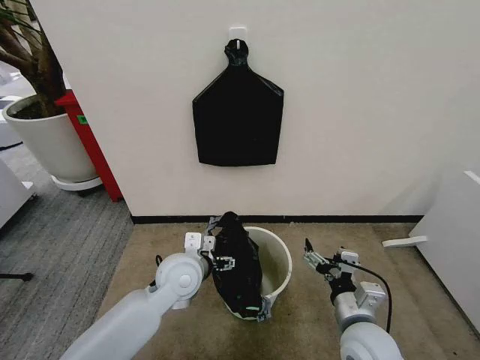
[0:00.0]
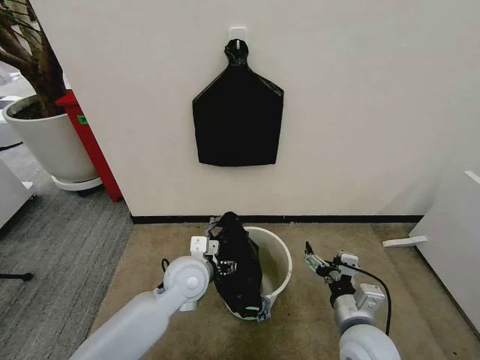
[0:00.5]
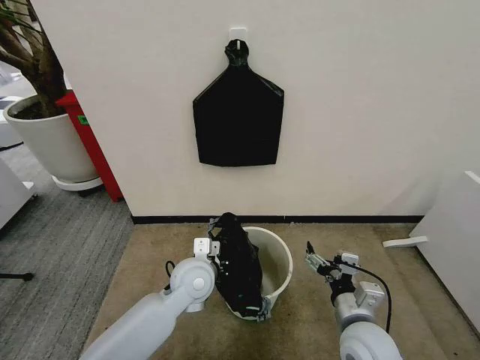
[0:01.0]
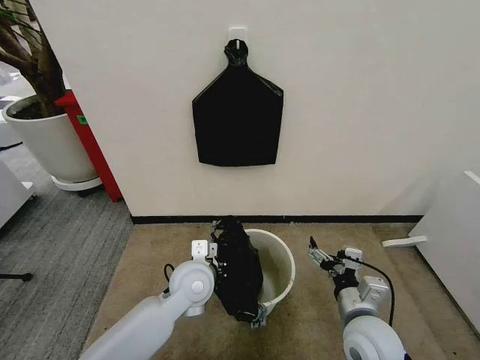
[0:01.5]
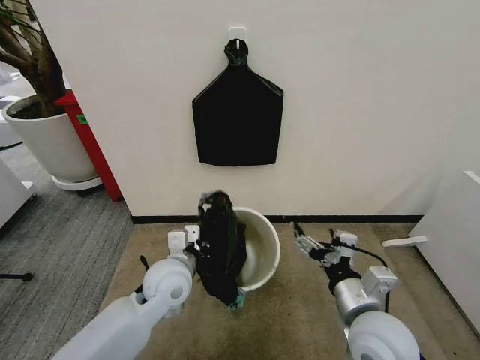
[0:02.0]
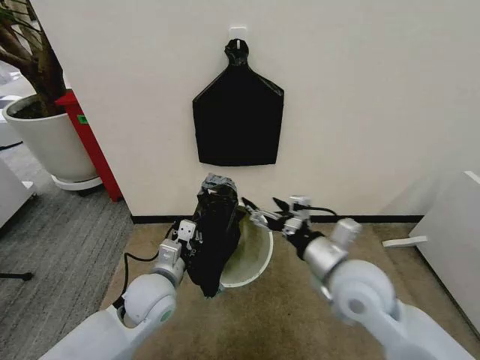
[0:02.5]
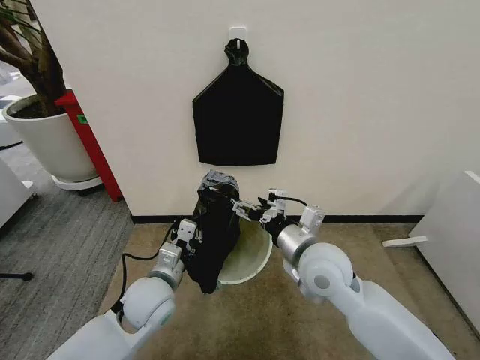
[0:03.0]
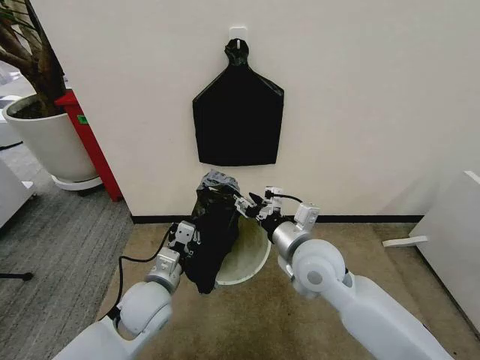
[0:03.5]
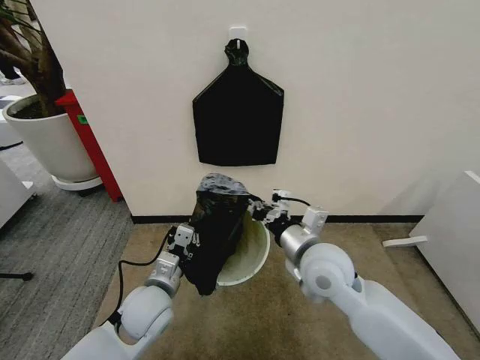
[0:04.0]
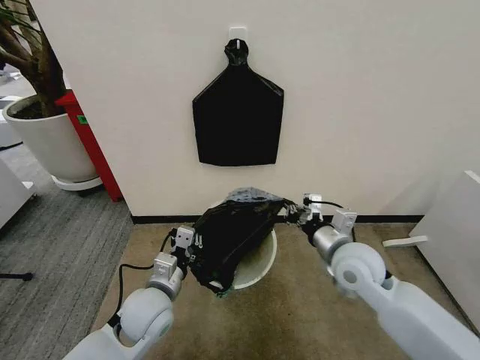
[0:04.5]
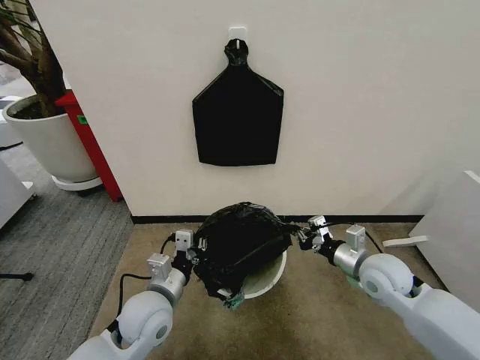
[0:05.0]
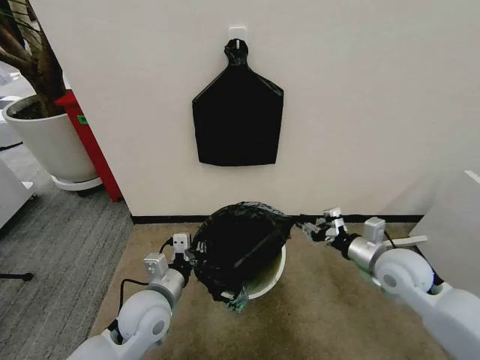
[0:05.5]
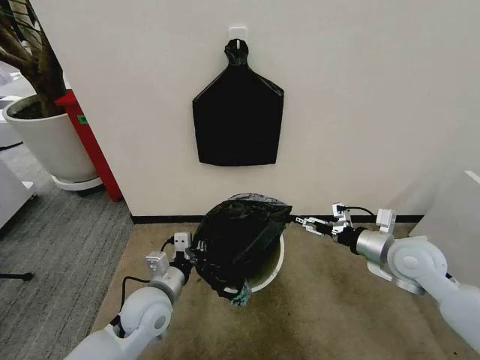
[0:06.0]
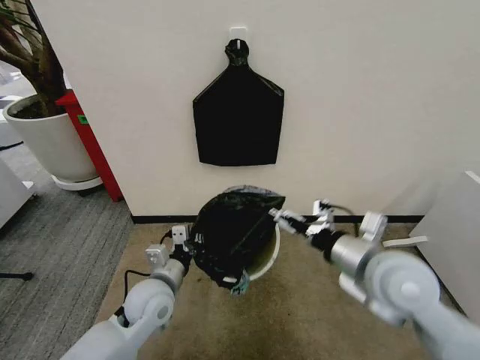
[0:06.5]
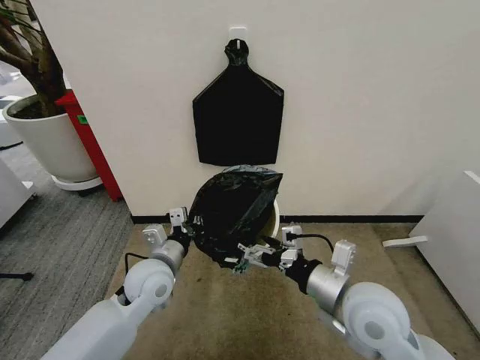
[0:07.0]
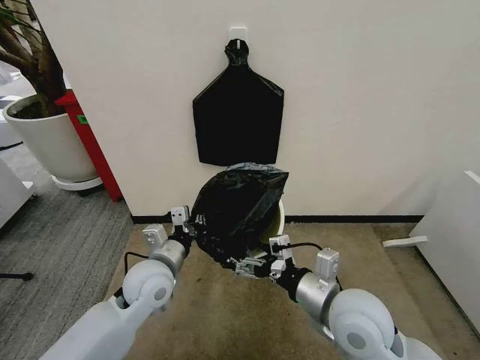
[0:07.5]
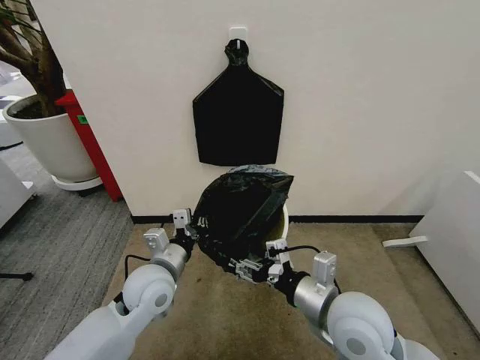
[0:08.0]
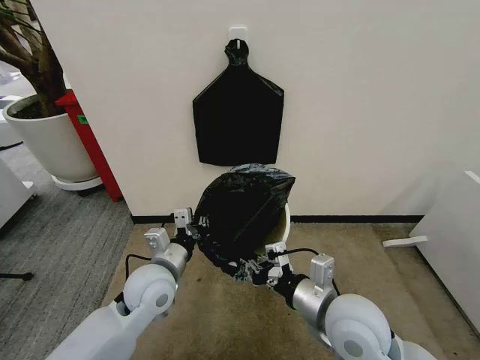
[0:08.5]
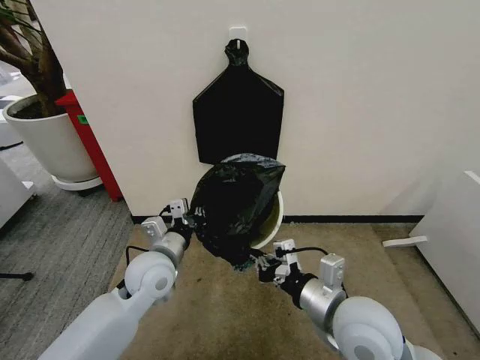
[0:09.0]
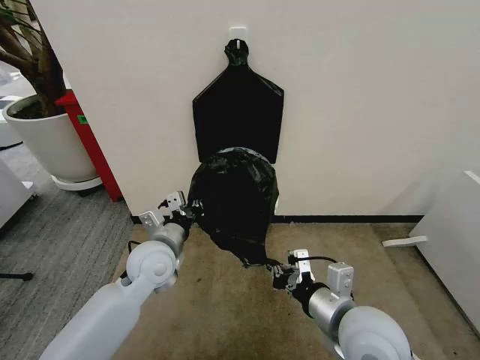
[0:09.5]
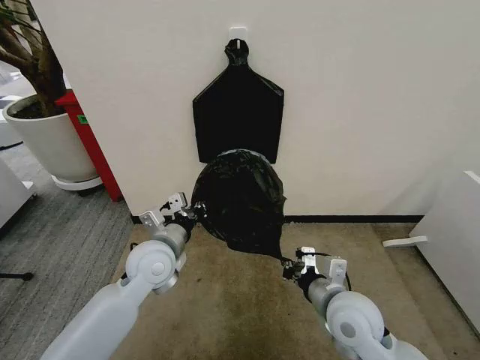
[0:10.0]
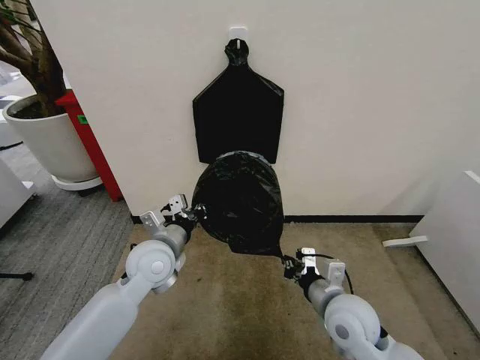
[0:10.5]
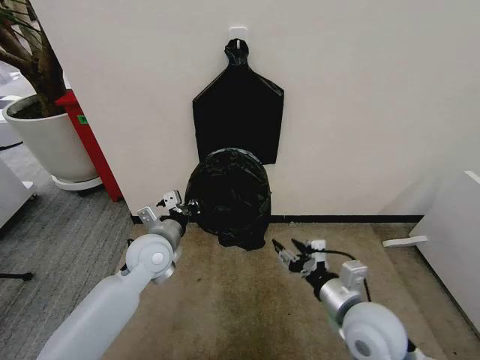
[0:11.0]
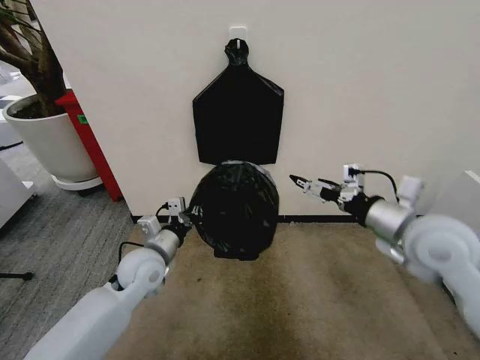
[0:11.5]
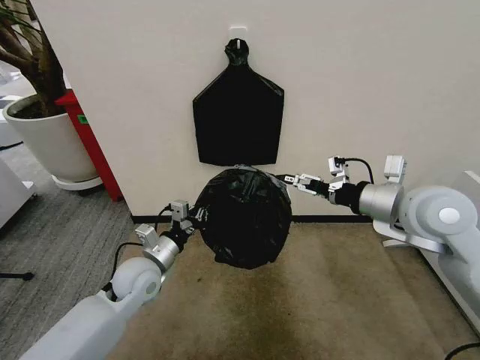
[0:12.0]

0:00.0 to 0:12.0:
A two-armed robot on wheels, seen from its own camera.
Task of the whole recording: Place the garbage bag over the trash bin.
0:00.0 to 0:02.0: The left gripper closes its fingers. Meanwhile the right gripper heads upward, covering some 10 cm.
0:02.0 to 0:04.0: The right gripper is displaced forward and to the left by about 15 cm, and closes its fingers, while the left gripper ends up roughly 5 cm from where it was.
0:04.0 to 0:06.0: The right gripper heads to the right, covering some 20 cm, and opens up.
0:06.0 to 0:08.0: The right gripper goes about 20 cm to the left and backward, while the left gripper changes place by approximately 5 cm.
0:08.0 to 0:10.0: The right gripper moves downward, some 5 cm, and closes up.
0:10.0 to 0:12.0: The right gripper heads upward, to the right and forward, covering some 25 cm, and opens its fingers. Meanwhile the left gripper shifts roughly 5 cm downward.

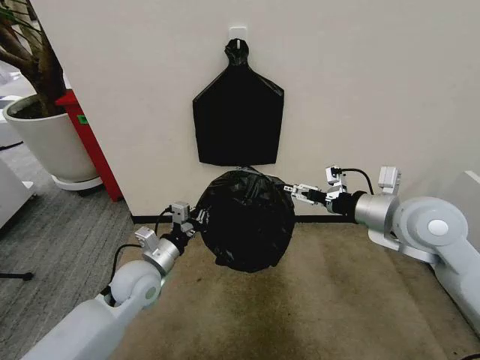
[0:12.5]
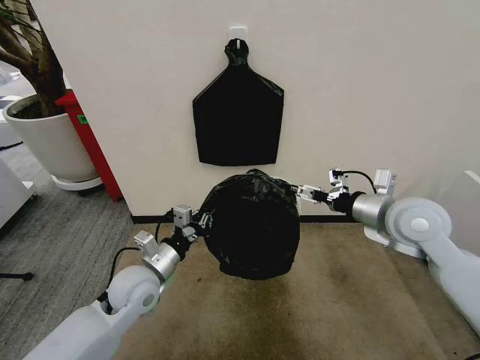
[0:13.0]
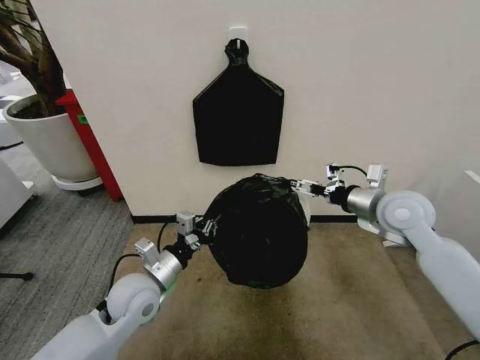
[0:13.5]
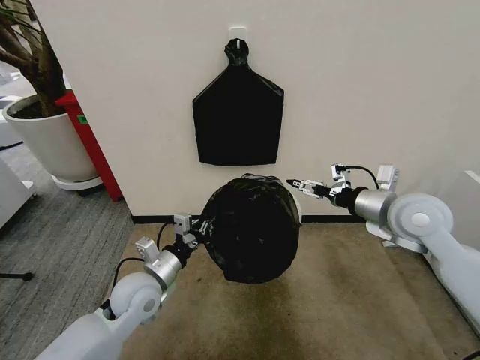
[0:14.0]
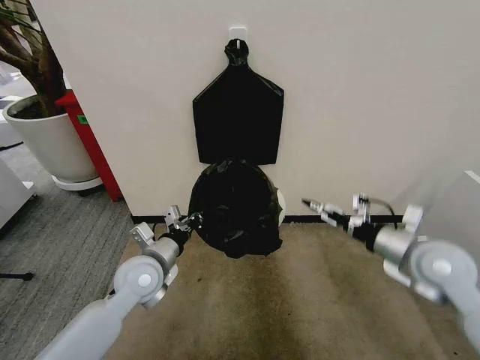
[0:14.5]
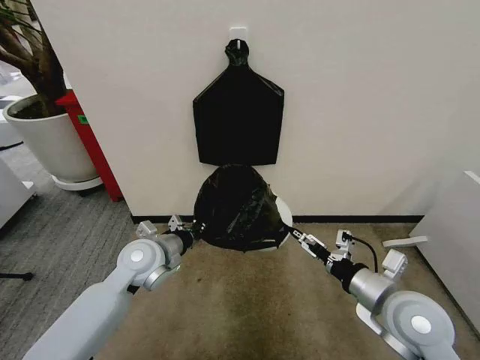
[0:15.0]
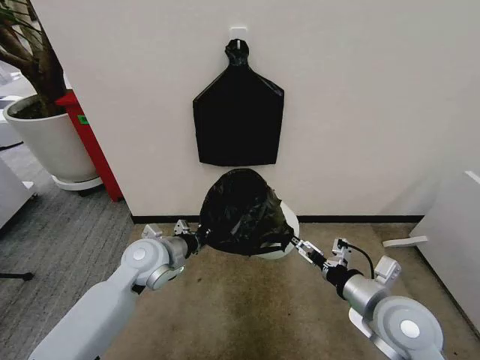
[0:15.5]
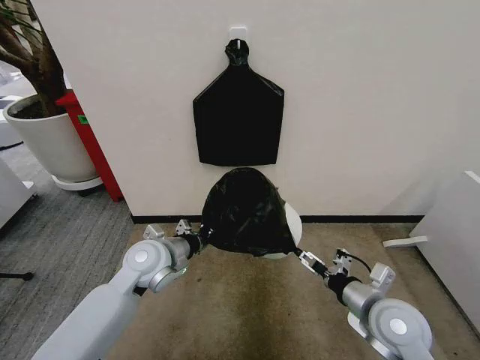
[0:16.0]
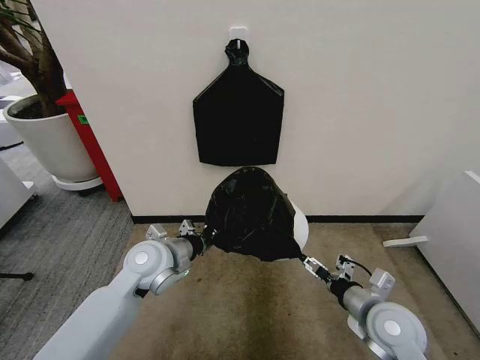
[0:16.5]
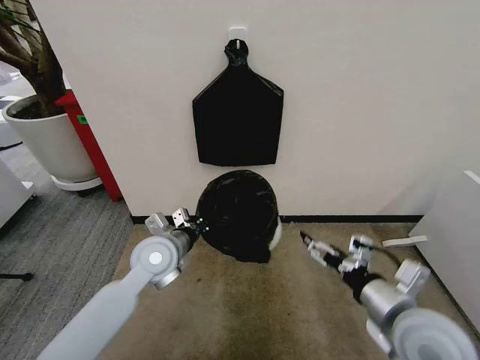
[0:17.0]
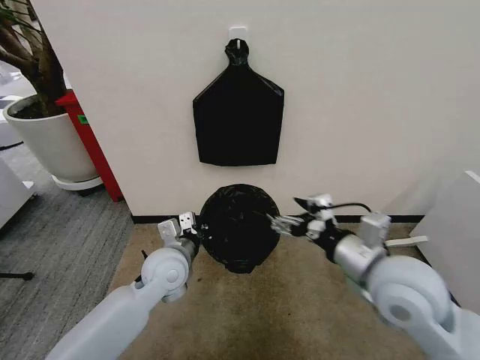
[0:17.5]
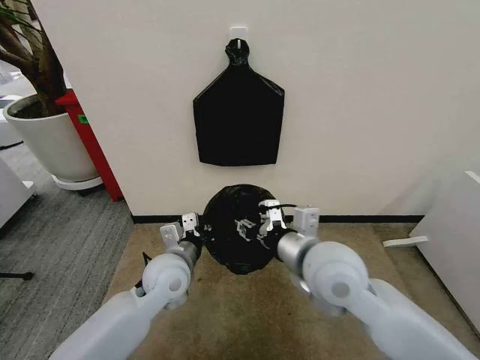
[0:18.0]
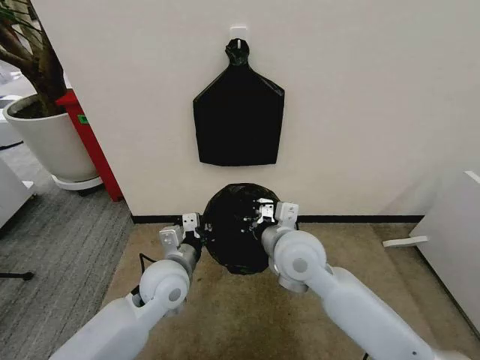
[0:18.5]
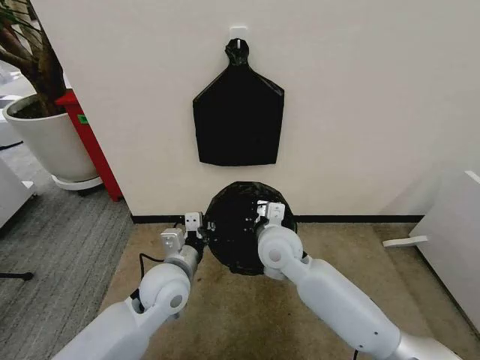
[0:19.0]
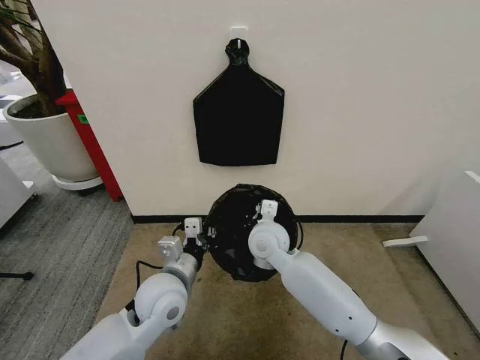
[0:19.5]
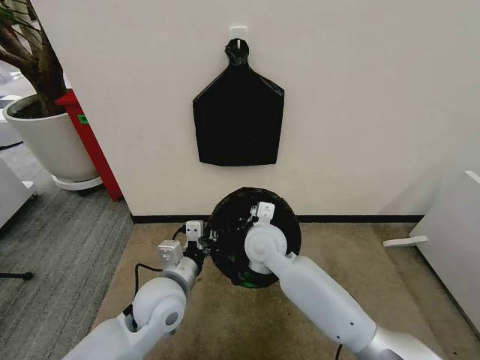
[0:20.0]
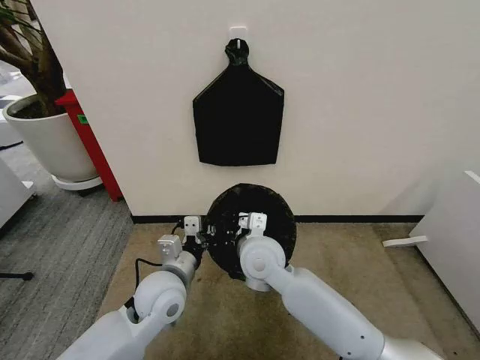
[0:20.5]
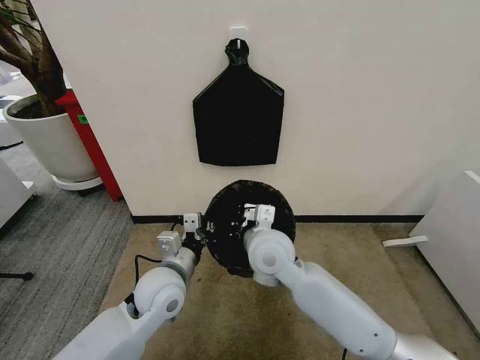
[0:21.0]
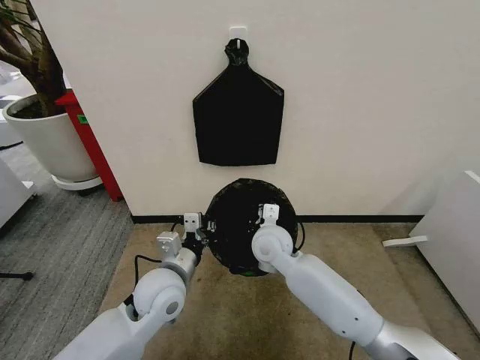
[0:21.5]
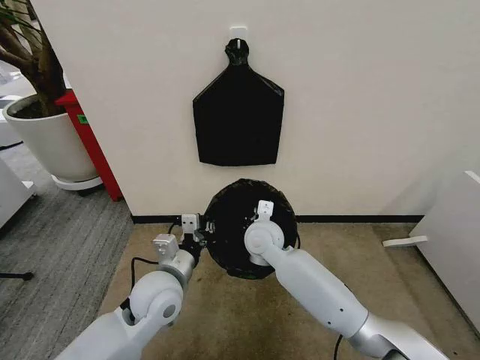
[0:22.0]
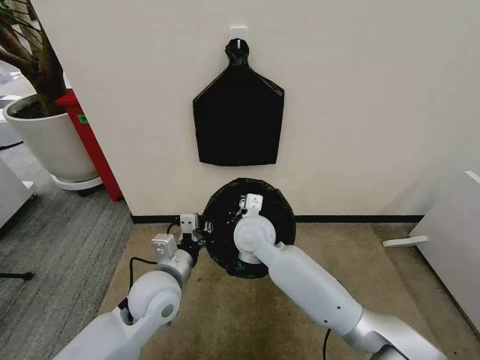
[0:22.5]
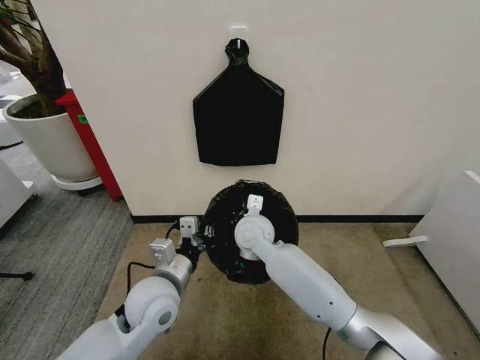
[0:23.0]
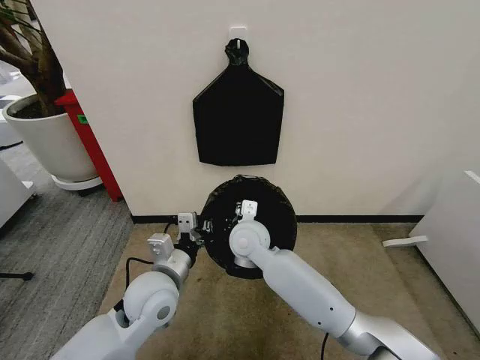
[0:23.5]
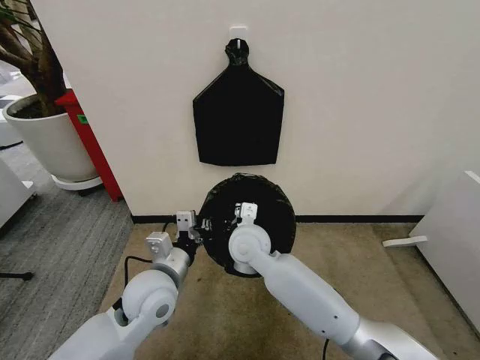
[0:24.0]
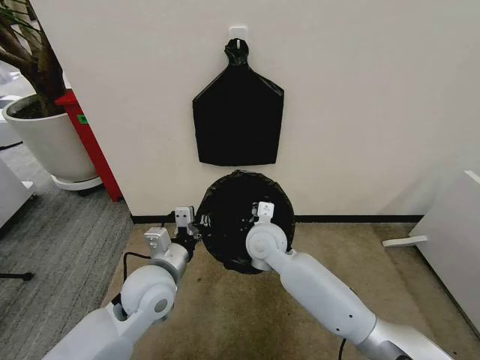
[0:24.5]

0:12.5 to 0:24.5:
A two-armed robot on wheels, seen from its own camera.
Task of the whole recording: Place the garbage bag over the trash bin.
0:12.5 to 0:14.5: The right gripper moves downward and to the right, roughly 10 cm.
0:14.5 to 0:16.5: The right gripper shifts about 15 cm downward, to the left and backward.
0:16.5 to 0:18.5: The left gripper ends up some 5 cm from where it was; the right gripper travels to the left, upward and forward by roughly 25 cm, and closes its fingers.
0:18.5 to 0:20.5: The right gripper travels to the left and downward by roughly 10 cm, and moves approximately 10 cm forward and comes back.
0:20.5 to 0:22.5: The right gripper travels forward by some 5 cm.
0:22.5 to 0:24.5: There are only small adjustments of the grippers.

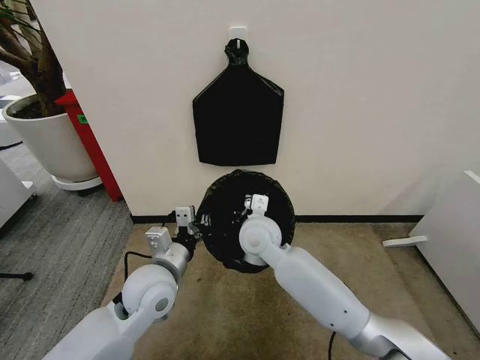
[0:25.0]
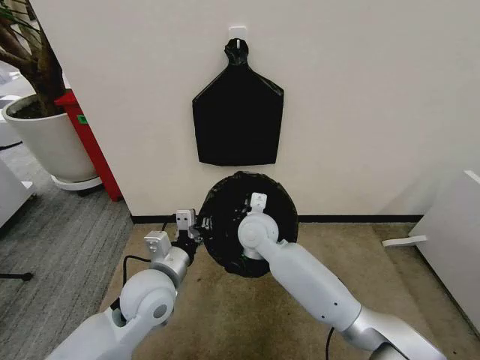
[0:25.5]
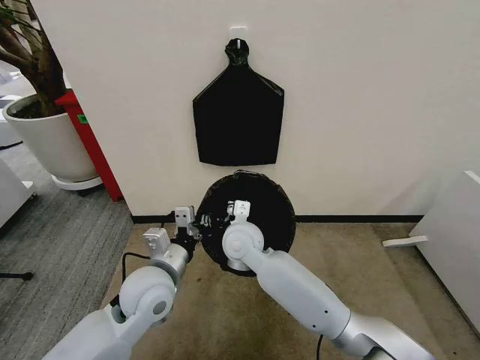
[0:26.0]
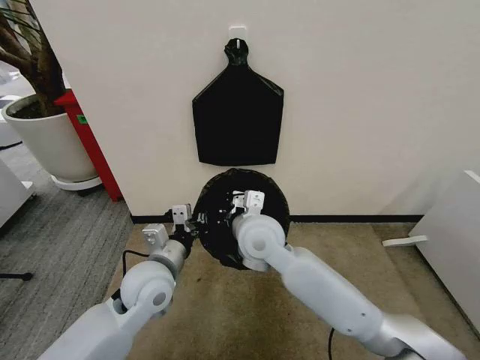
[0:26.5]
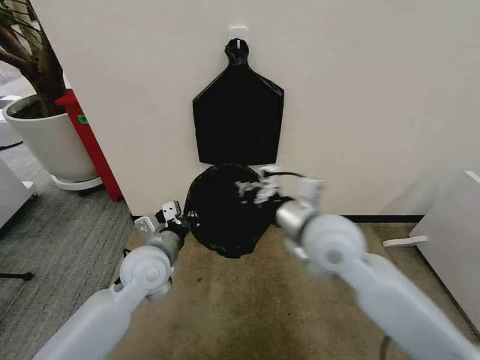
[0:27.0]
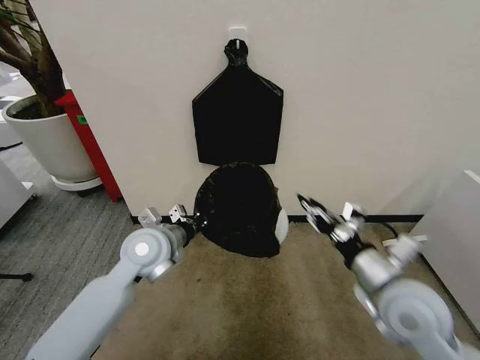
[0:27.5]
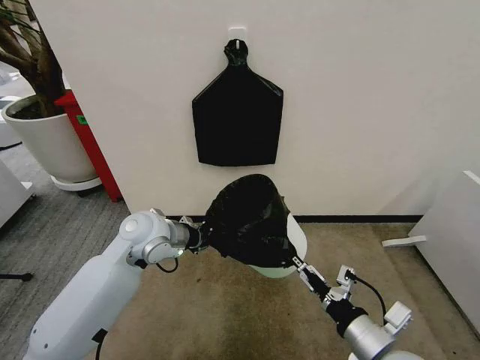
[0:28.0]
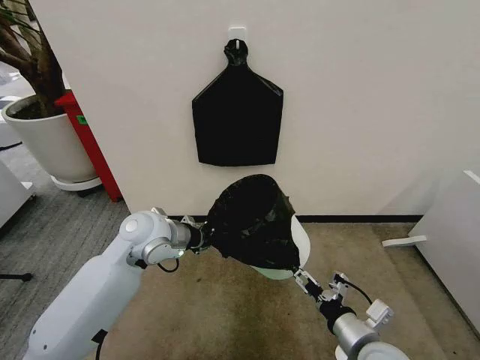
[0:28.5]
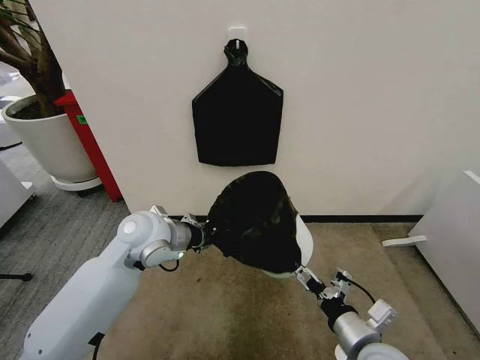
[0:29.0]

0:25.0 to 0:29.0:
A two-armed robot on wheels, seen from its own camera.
Task of the whole recording: Place the garbage bag over the trash bin.
0:25.0 to 0:27.0: The right gripper travels to the right, upward and backward by some 20 cm.
0:27.0 to 0:29.0: The left gripper travels upward by roughly 5 cm; the right gripper moves downward, backward and to the right, some 25 cm, and opens up.
